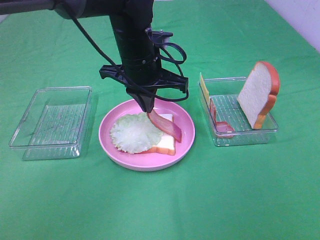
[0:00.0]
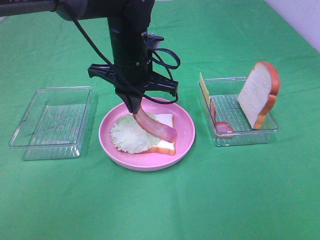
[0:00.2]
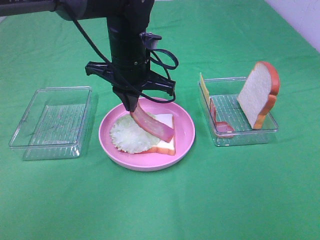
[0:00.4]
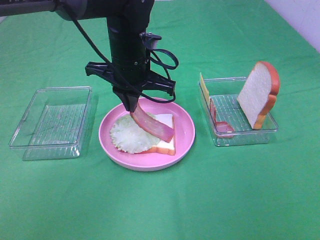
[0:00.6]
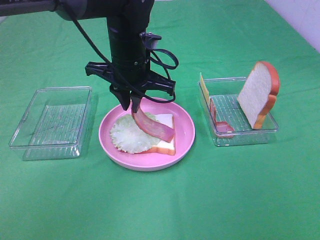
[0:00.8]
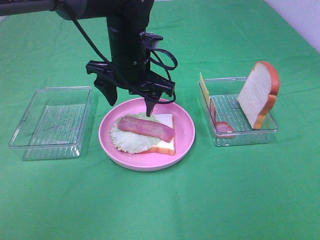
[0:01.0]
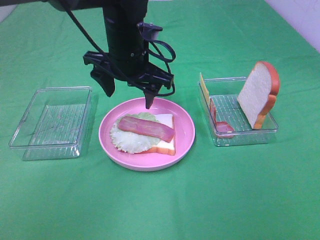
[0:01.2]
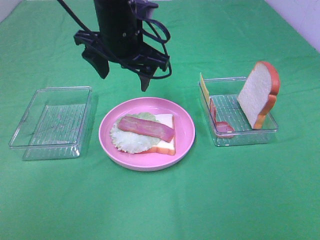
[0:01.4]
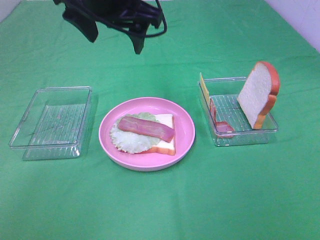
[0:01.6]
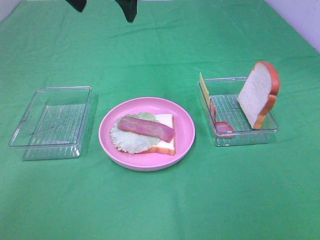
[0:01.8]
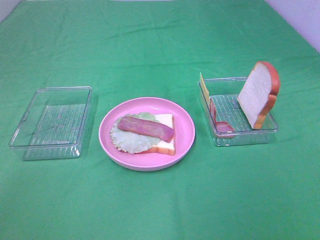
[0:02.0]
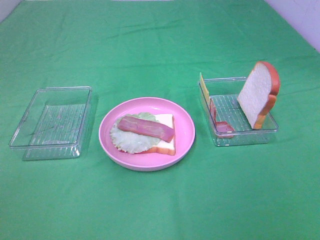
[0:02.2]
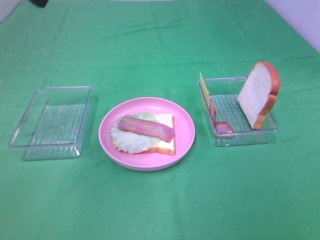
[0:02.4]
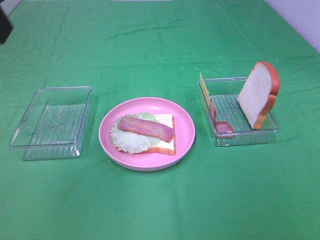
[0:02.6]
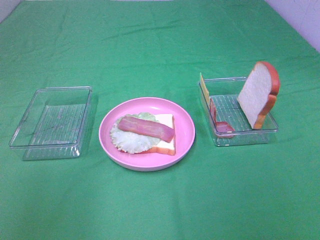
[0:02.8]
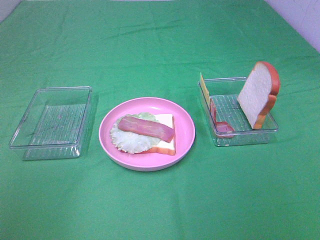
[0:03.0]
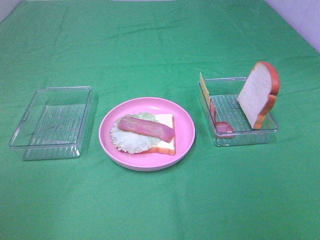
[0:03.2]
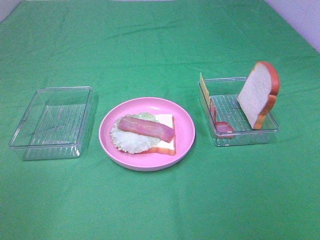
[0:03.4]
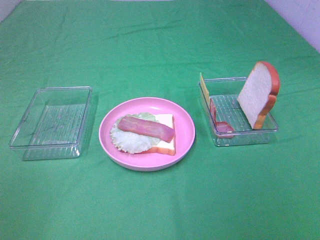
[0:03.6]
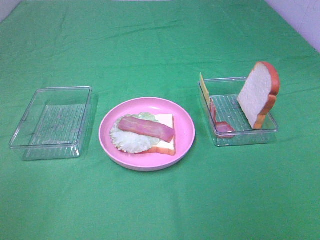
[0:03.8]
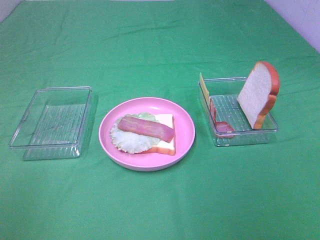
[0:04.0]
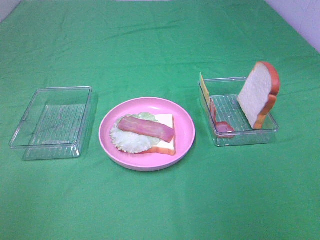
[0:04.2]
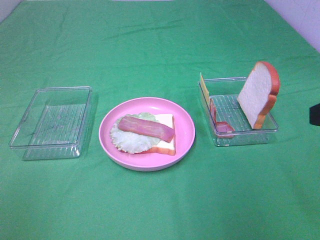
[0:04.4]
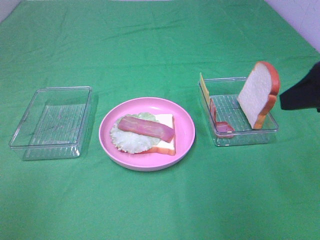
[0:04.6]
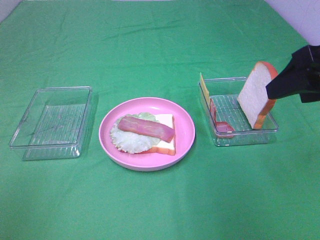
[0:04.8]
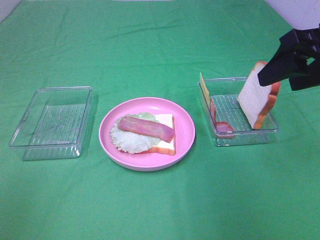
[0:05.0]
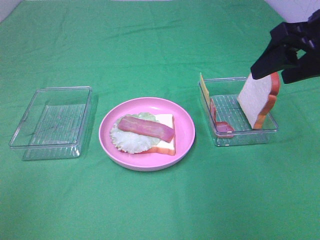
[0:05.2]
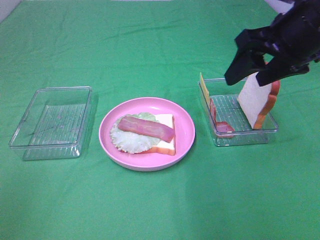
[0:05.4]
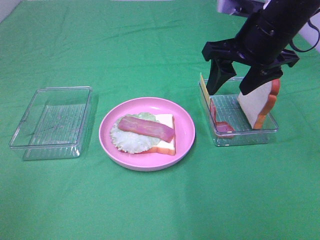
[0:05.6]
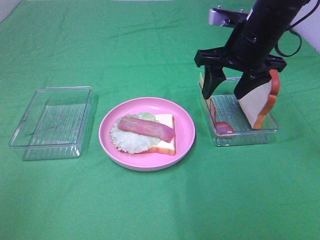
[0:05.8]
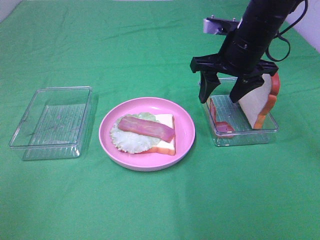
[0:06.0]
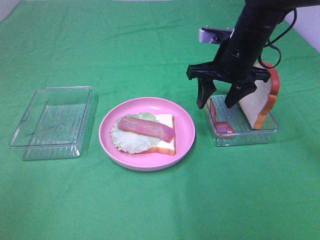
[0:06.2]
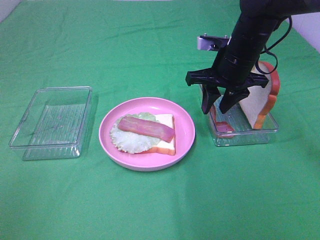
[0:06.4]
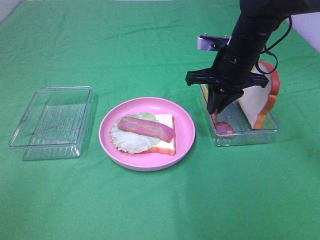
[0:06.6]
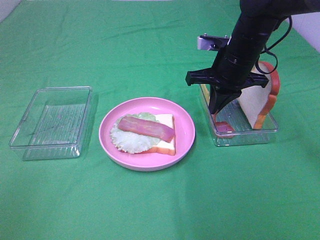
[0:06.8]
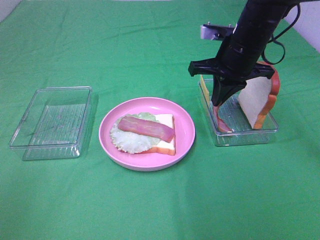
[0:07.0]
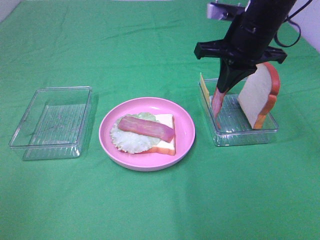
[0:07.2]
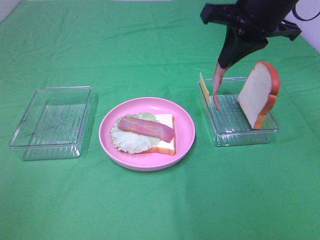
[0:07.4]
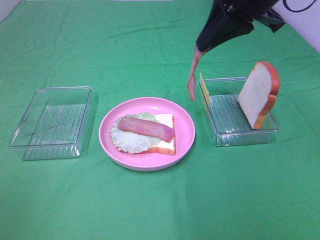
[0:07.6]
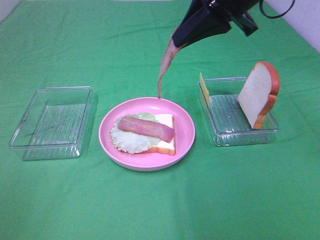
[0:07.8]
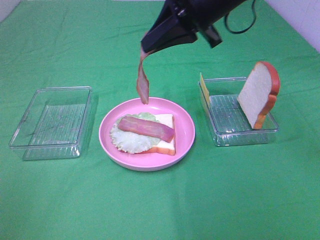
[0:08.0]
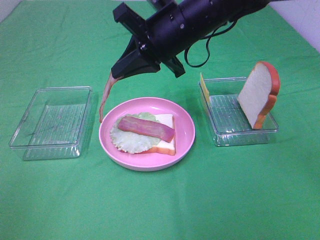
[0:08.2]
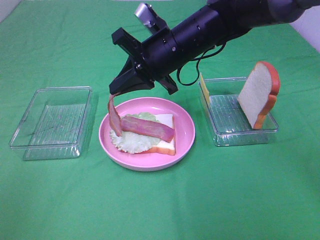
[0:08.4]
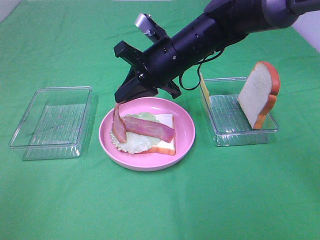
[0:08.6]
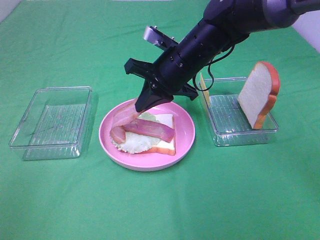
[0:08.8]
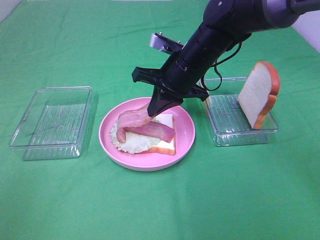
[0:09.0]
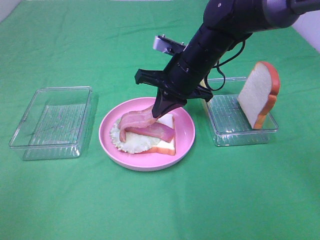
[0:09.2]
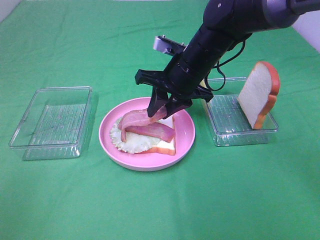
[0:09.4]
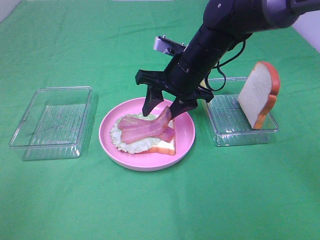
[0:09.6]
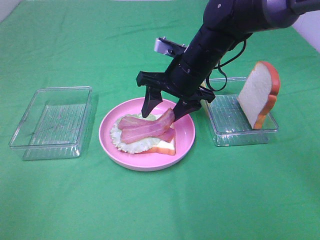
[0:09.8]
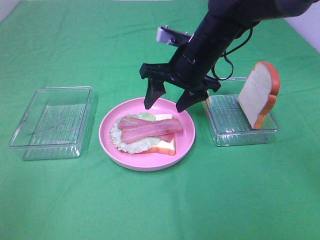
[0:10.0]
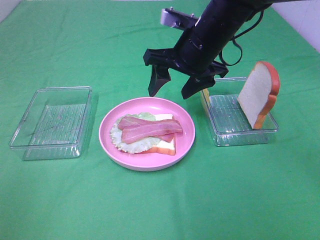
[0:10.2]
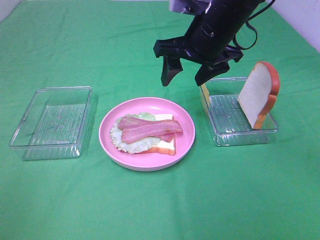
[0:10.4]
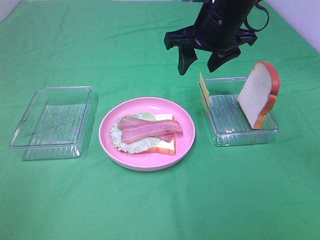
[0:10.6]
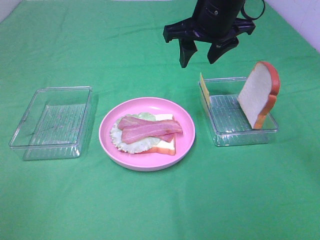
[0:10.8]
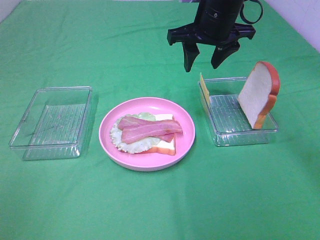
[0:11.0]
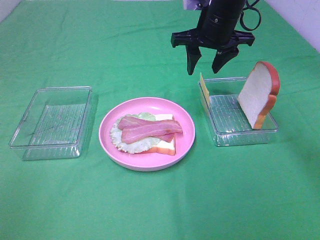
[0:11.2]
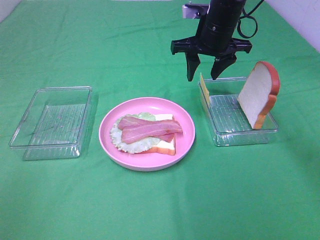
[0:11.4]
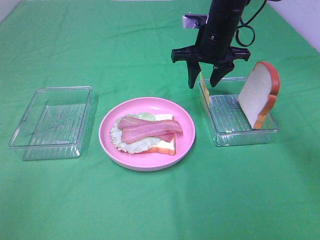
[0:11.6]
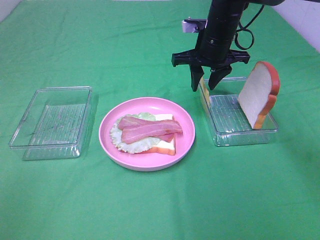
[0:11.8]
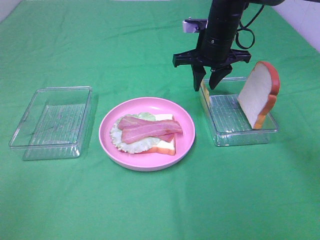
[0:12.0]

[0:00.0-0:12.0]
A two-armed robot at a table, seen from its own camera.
Task of the whole recording: Make sandwiches.
Step, 1.0 to 7.0 s: Right hand:grab the bacon.
Step, 7.2 to 10.0 s: Right hand:place bacon on bacon.
0.0 to 1.6 s: The left gripper shifts roughly 15 cm upward, and opens its fingers.
1.6 to 3.0 s: The left gripper travels backward and to the left by roughly 35 cm.
4.4 to 6.0 s: The right gripper heads forward and to the left, covering some 25 cm.
6.0 to 7.6 s: The right gripper is displaced upward and backward by roughly 15 cm, and closes.
7.6 to 9.0 s: The right gripper moves downward and to the left, some 20 cm.
9.0 to 10.4 s: The right gripper goes approximately 5 cm upward, and opens.
10.4 to 12.0 s: The right gripper travels forward and downward by some 10 cm, and closes up.

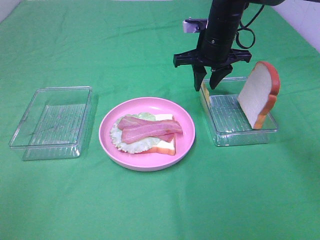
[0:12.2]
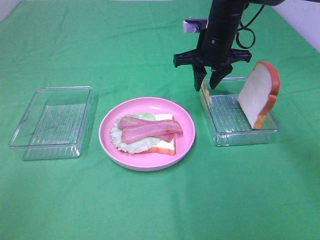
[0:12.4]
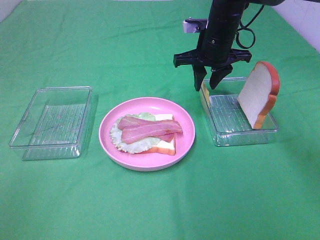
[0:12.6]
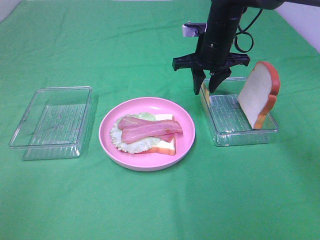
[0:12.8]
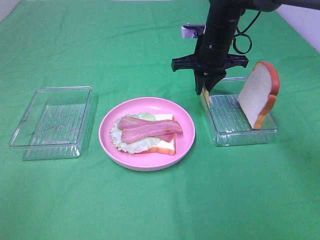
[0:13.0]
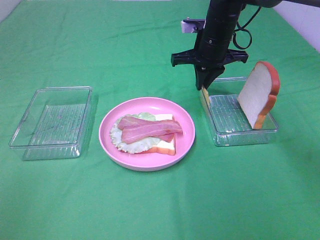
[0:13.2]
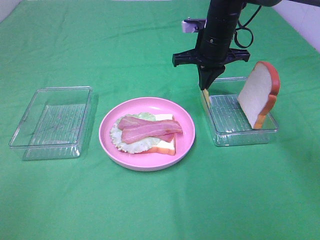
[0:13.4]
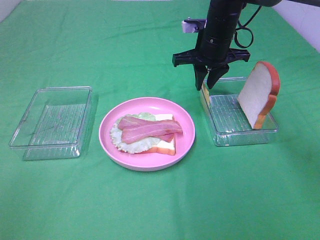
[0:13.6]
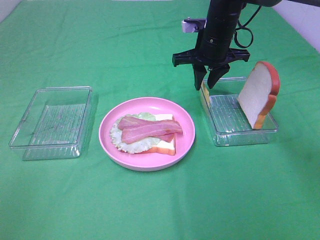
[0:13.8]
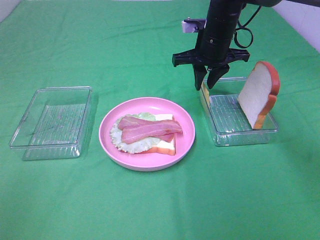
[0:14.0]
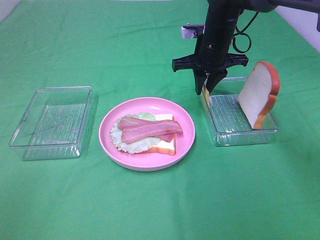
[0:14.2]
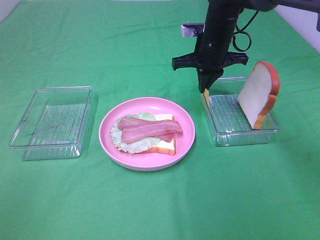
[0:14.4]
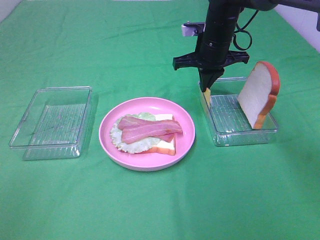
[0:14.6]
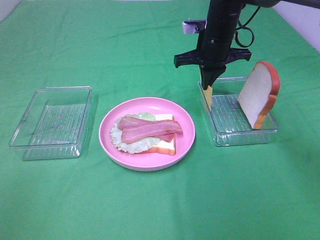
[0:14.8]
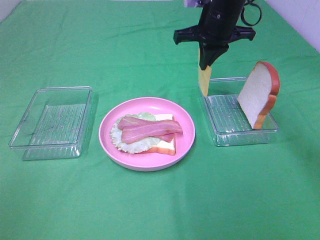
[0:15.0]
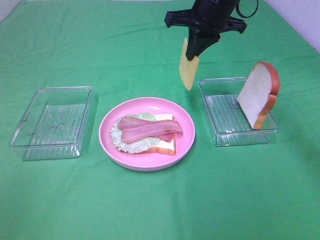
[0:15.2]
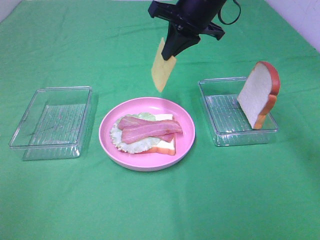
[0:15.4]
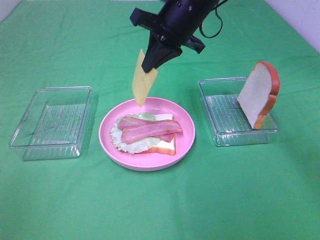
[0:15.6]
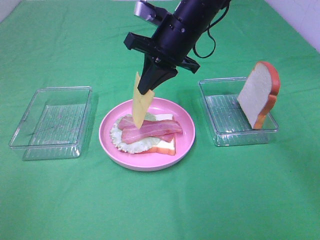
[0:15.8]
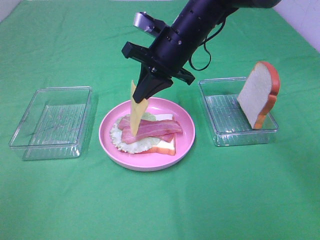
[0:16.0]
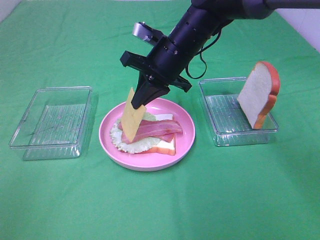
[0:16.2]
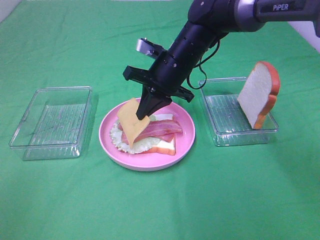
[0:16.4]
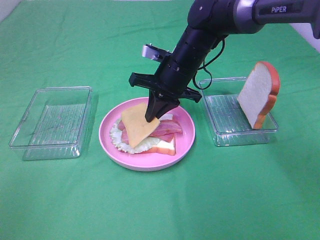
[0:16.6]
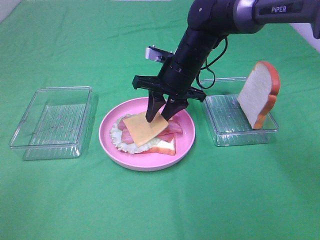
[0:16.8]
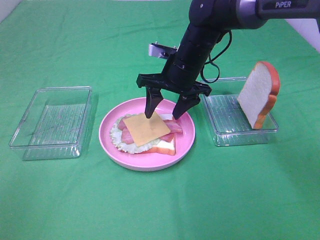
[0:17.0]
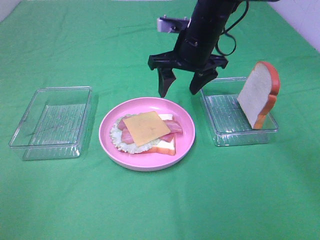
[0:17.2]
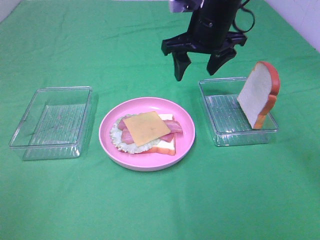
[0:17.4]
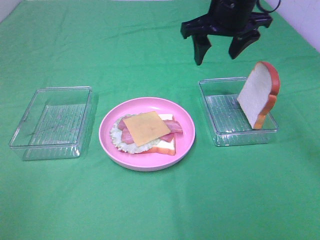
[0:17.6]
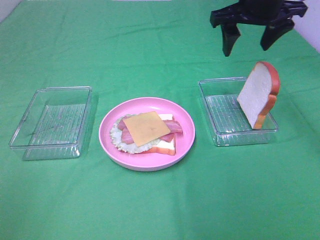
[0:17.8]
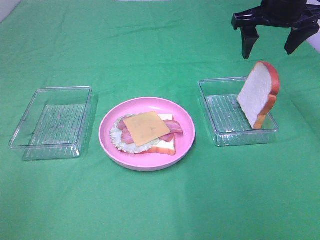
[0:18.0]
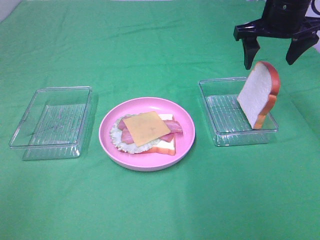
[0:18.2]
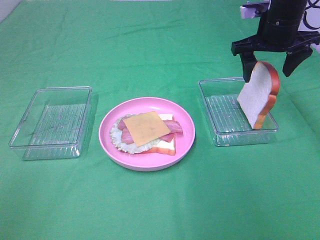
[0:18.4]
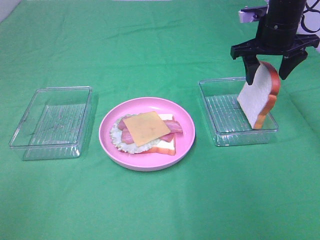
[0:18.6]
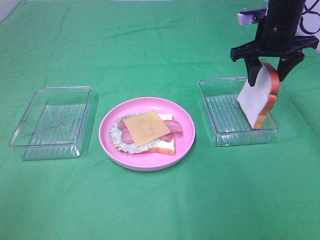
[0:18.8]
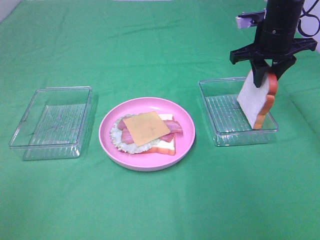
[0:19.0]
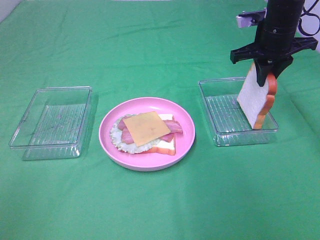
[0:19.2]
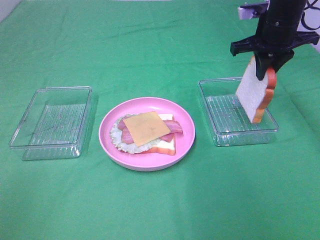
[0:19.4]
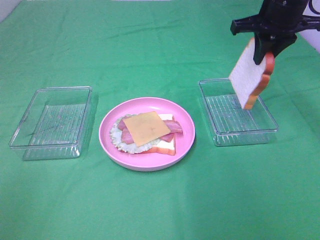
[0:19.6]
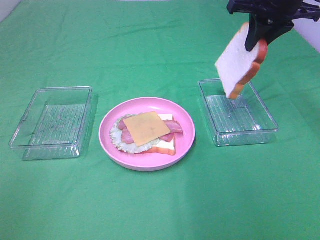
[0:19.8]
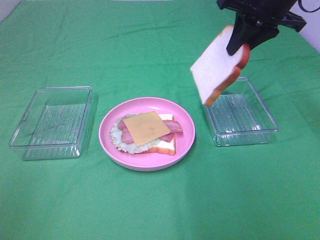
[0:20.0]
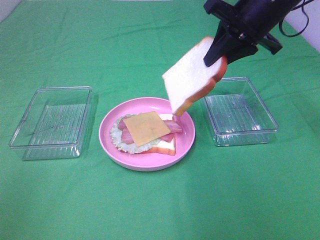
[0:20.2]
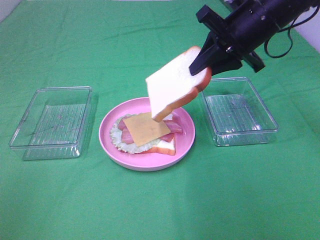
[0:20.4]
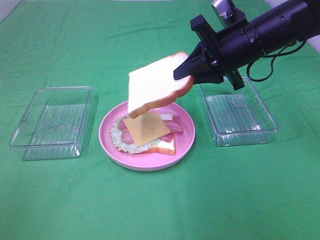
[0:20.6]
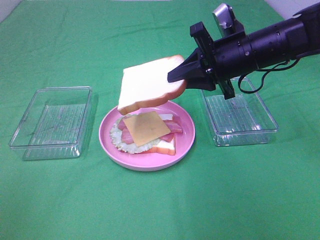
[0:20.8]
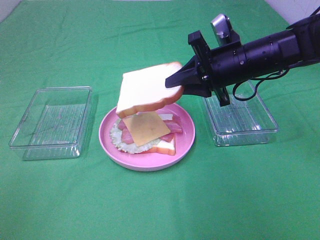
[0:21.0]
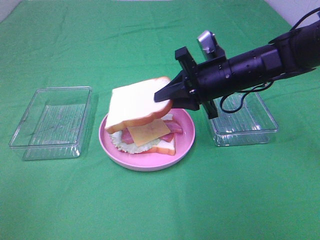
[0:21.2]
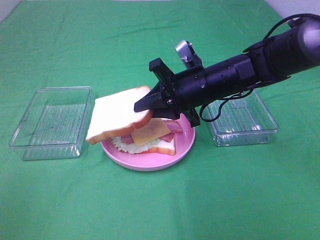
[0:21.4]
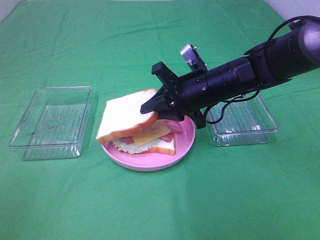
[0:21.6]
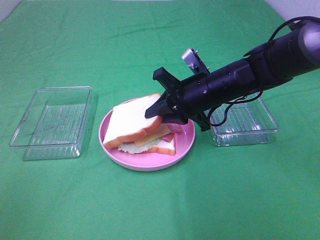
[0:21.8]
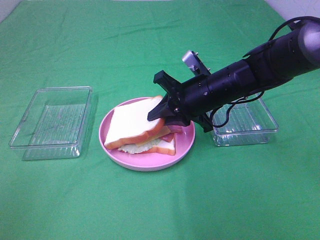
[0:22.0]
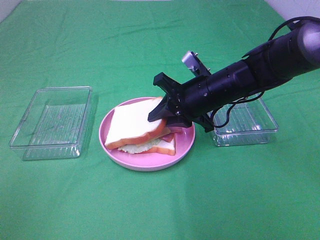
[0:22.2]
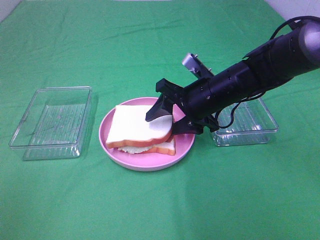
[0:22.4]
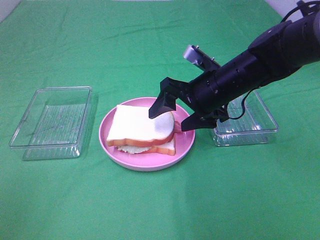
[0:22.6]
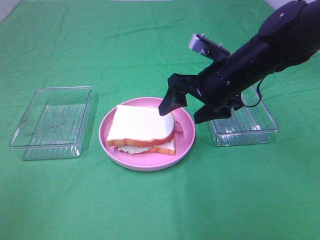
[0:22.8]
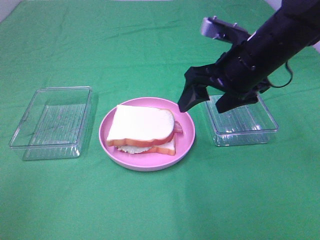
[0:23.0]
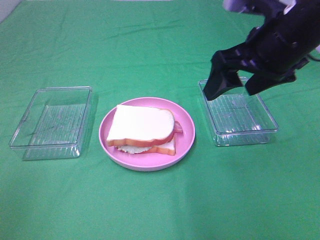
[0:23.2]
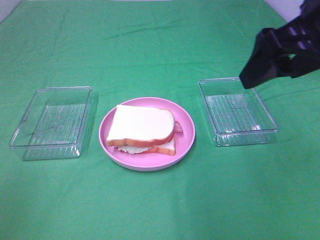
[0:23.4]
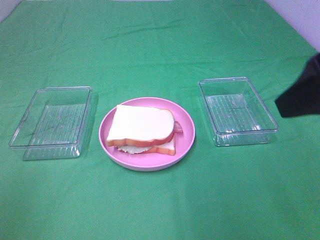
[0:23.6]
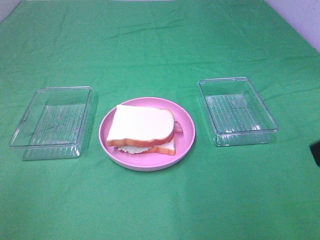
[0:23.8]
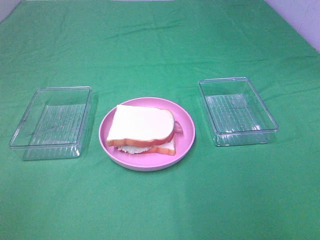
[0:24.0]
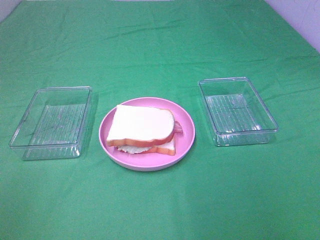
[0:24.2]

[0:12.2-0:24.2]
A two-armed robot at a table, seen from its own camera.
Task of the whole recording: Make sandwiches.
Step, 12.2 to 14.4 s: Right hand:grab the cheese slice.
Step, 14.6 to 17.0 s: Right hand:place the cheese slice on top of the bacon.
Step, 17.2 to 19.2 s: Right hand:grab the bread slice.
Step, 19.4 to 22.6 s: Right hand:place the bread slice on the cheese slice.
12.2 to 13.8 s: The grippers make only small movements.
13.8 to 15.2 s: The right gripper travels upward by some 10 cm, and closes.
15.2 to 16.6 s: The right gripper goes approximately 15 cm downward and to the left.
16.6 to 18.2 s: The right gripper shifts roughly 20 cm to the right and upward, and opens up.
18.2 to 19.8 s: The right gripper shifts by roughly 5 cm, and closes.
19.8 to 21.2 s: The right gripper shifts some 15 cm downward and to the left.
21.2 to 22.6 s: The right gripper opens up.
22.6 to 24.2 s: The right gripper shifts approximately 40 cm backward, to the right and upward.
